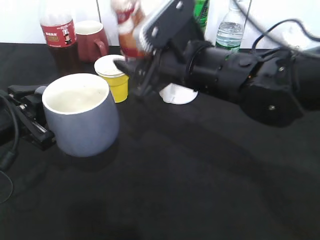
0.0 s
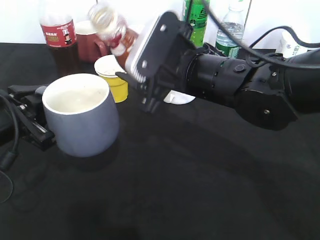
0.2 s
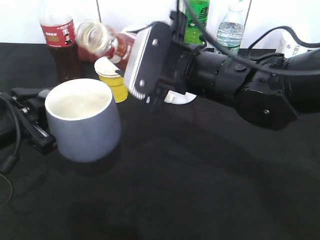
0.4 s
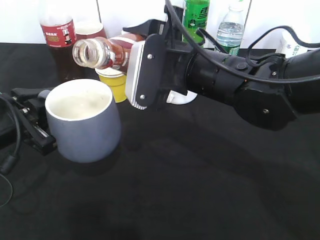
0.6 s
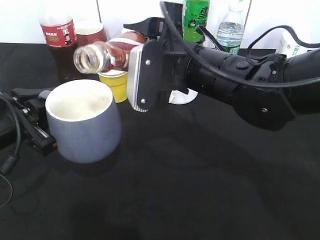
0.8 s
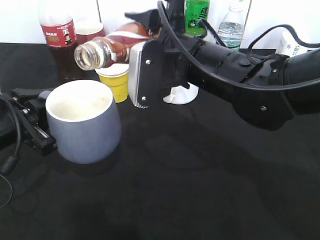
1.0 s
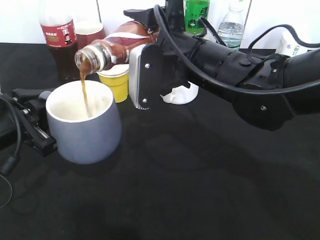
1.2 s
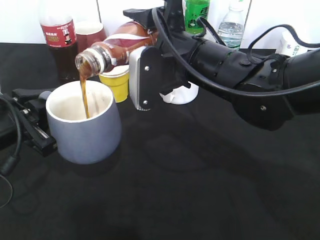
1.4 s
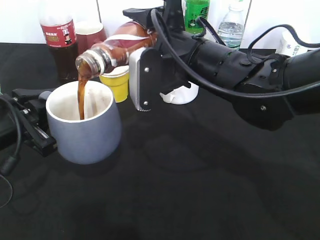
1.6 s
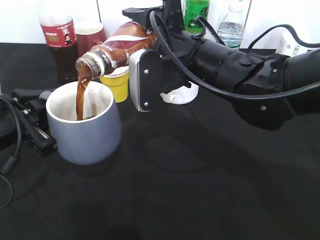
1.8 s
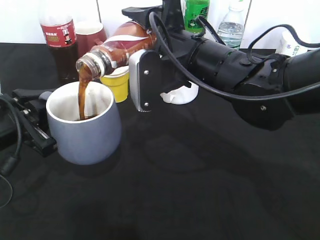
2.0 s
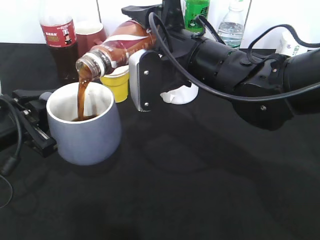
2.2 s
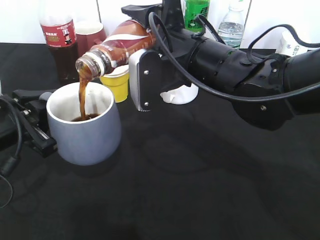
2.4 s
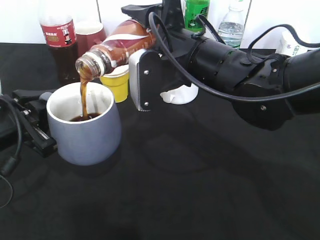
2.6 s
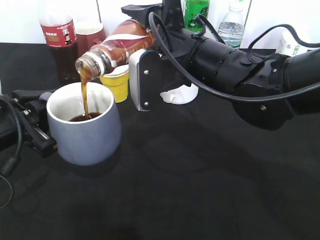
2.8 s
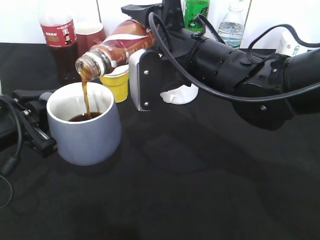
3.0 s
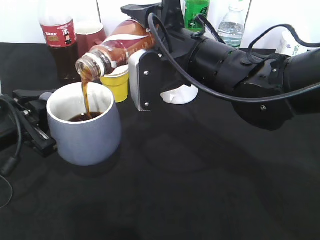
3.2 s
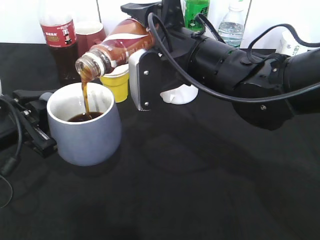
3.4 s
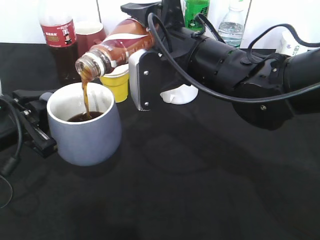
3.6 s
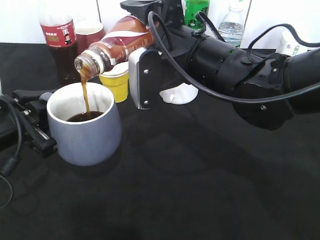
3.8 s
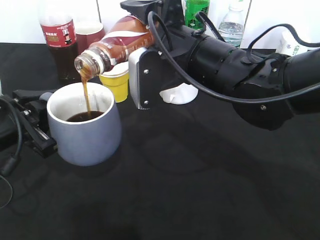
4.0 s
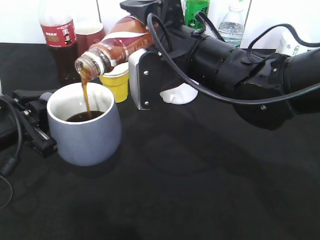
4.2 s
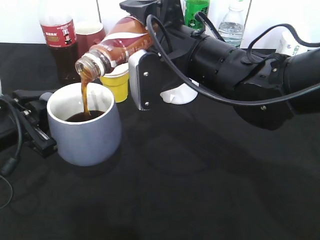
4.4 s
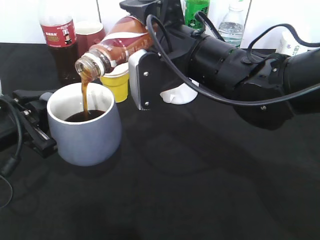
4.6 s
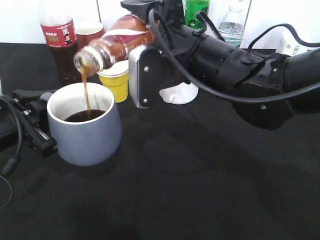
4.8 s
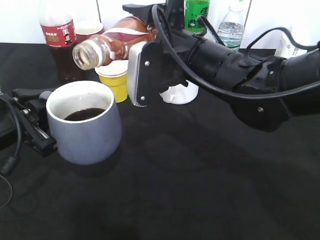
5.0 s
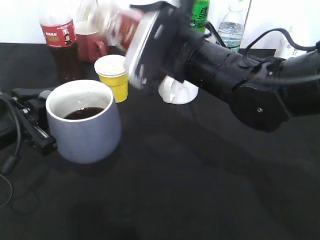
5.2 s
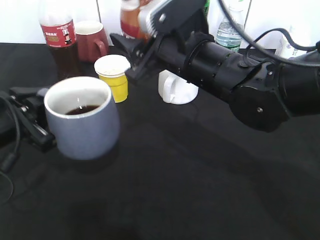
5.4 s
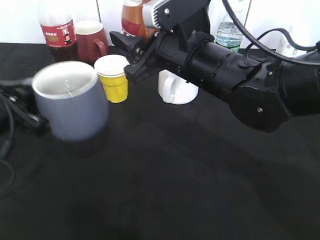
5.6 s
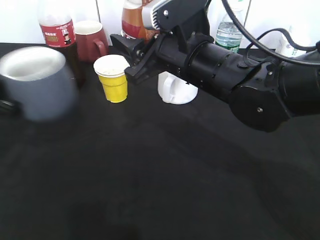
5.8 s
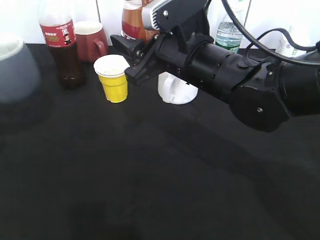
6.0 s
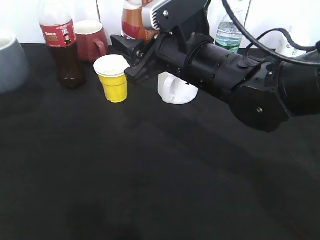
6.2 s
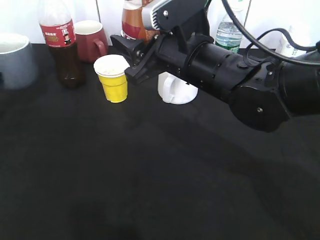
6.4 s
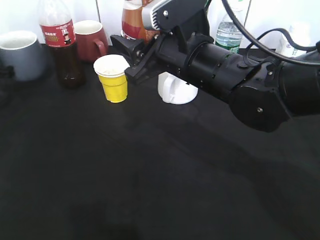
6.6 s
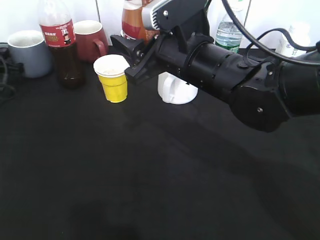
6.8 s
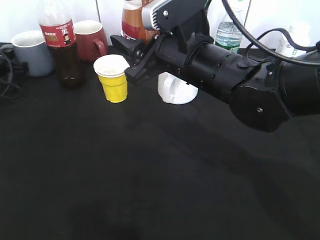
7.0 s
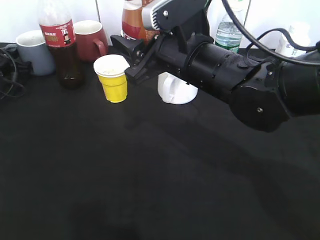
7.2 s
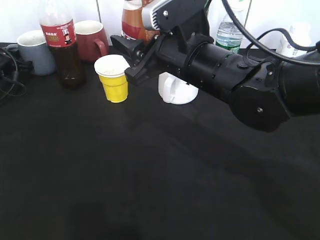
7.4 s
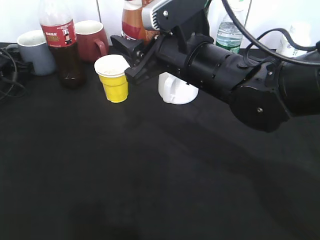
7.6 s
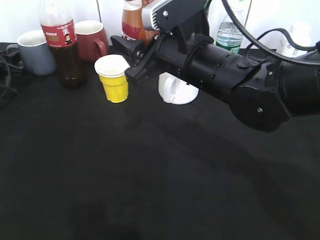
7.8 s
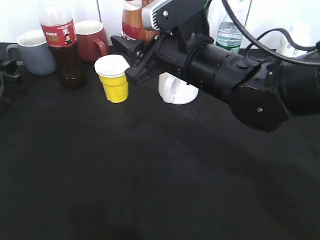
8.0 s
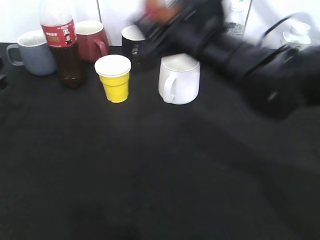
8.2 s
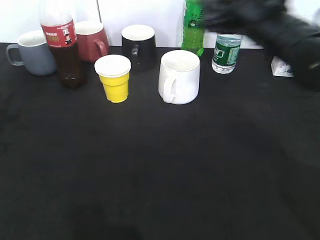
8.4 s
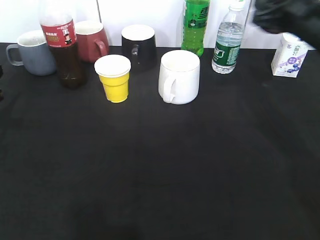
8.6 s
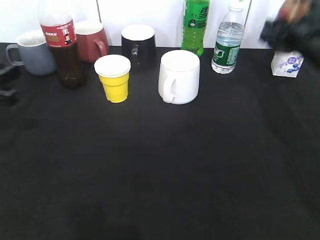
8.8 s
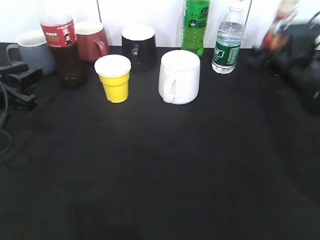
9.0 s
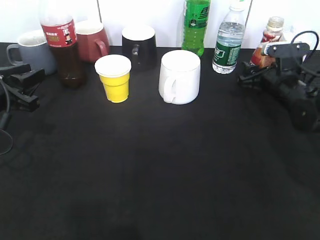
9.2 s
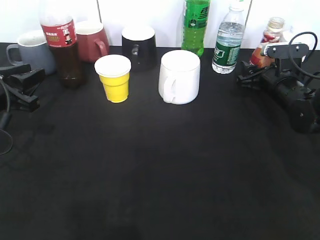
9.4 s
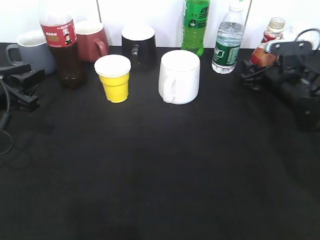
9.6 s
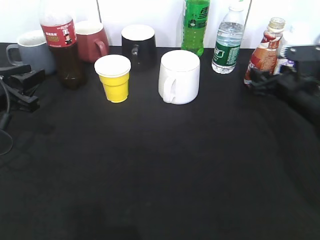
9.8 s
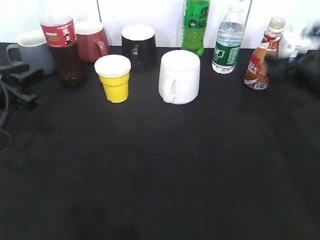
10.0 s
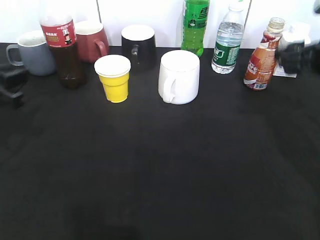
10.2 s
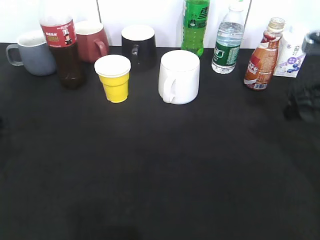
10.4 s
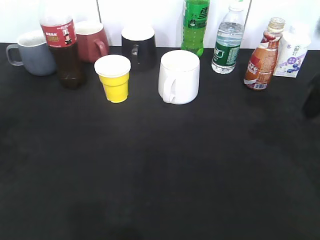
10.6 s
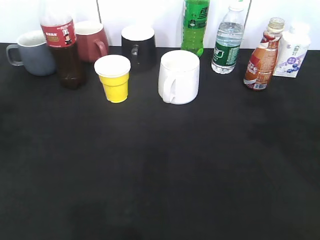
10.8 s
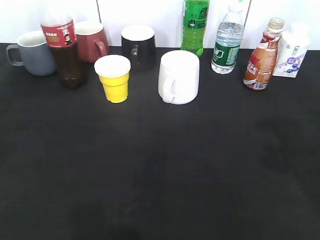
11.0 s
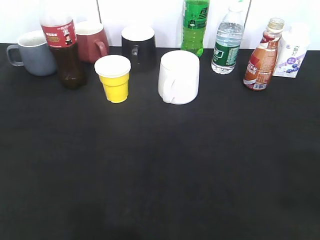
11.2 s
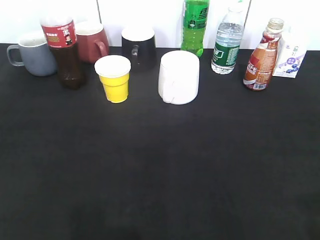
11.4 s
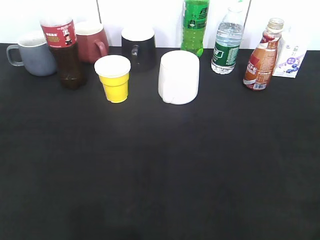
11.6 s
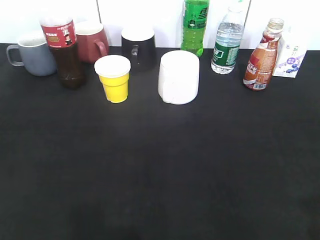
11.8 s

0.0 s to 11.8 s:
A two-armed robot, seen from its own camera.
Step, 0.0 to 5.0 s: Pour the coffee from bottle to cup with right gripper.
Step, 5.4 to 8.0 s: Place the grey cup on the table with left gripper.
Step, 8.4 to 10.0 s: Place the coffee bottle on the table with right gripper.
1.4 to 3.0 s: Both grippers stay put.
3.0 to 4.4 s: Neither gripper changes place.
4.4 to 6.0 s: The left gripper is displaced to the left by some 10 cm.
6.0 to 7.4 s: The left gripper goes about 25 cm forward and downward.
7.4 to 8.8 s: The left gripper shifts roughly 20 cm backward. The right gripper moves to the right and forward, roughly 25 cm.
8.8 to 10.4 s: The right gripper moves backward, some 10 cm, and reaches roughly 10 cm downward, then returns.
10.4 to 11.8 s: The left gripper is displaced backward and upward by roughly 20 cm. The right gripper shifts approximately 25 cm backward.

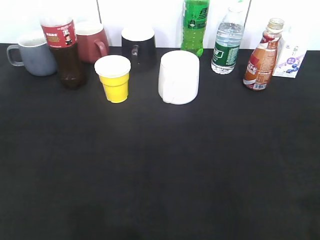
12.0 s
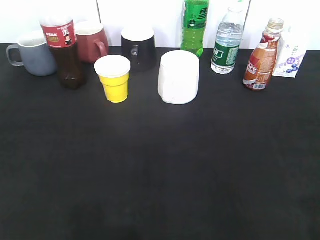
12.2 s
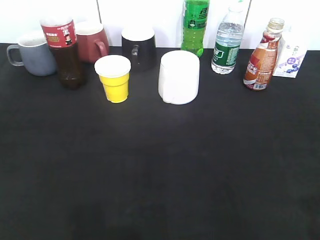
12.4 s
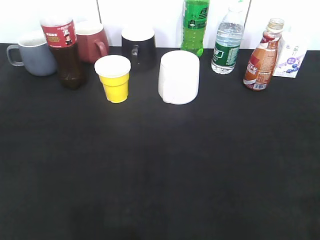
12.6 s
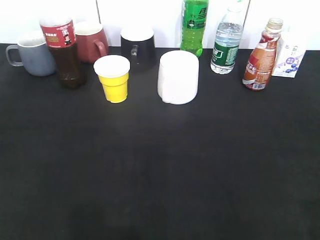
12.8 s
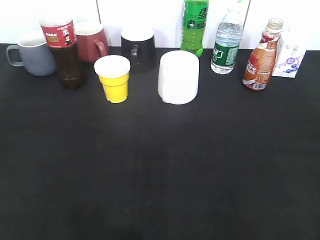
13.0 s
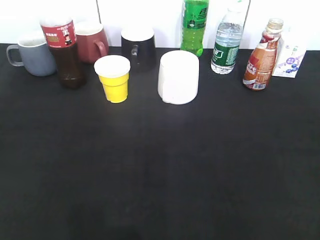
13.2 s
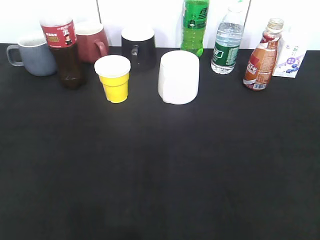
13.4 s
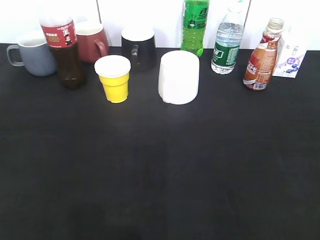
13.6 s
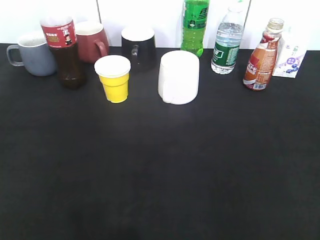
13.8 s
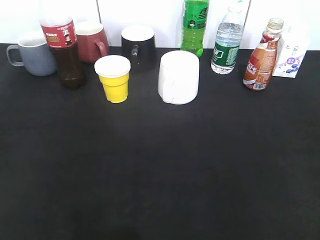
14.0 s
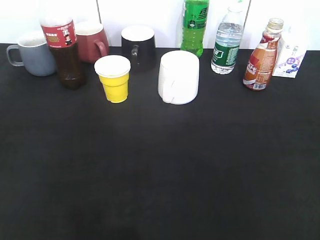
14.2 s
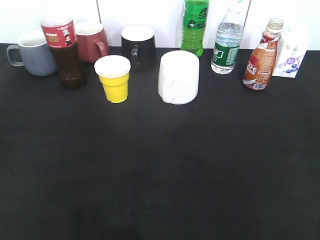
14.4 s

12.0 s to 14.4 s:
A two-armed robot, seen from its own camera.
13.2 to 14.4 s: Neither gripper changes place.

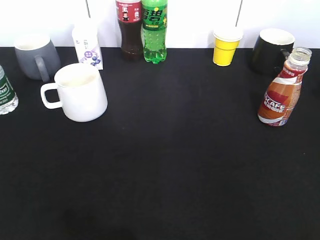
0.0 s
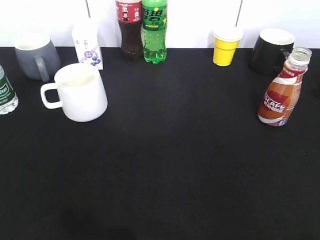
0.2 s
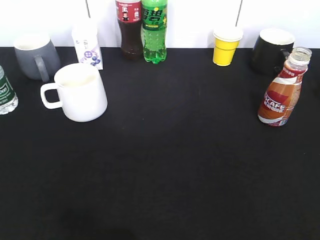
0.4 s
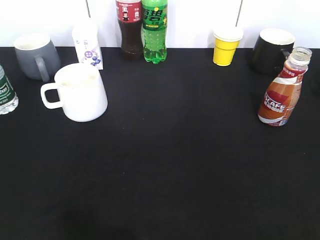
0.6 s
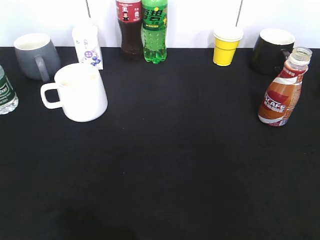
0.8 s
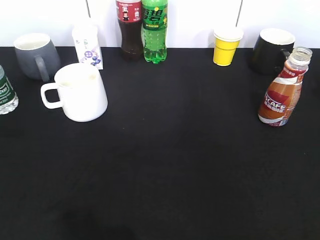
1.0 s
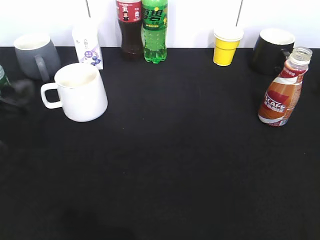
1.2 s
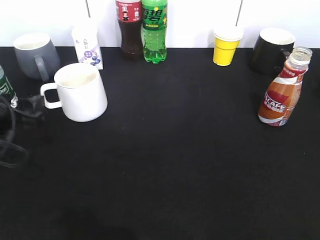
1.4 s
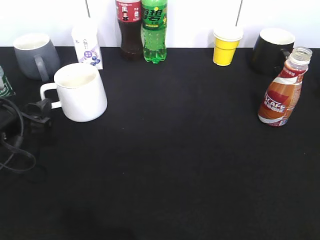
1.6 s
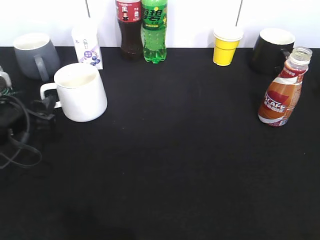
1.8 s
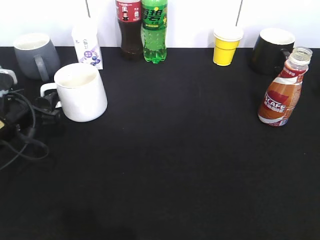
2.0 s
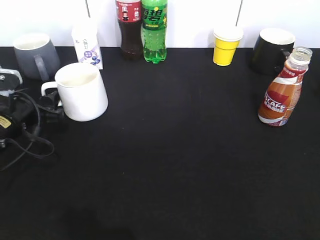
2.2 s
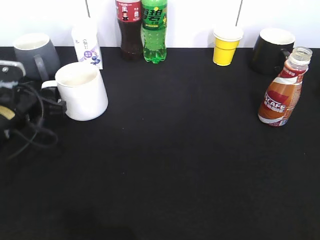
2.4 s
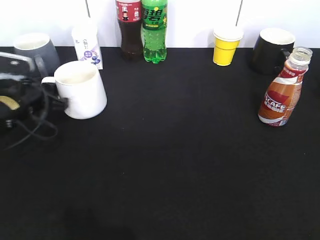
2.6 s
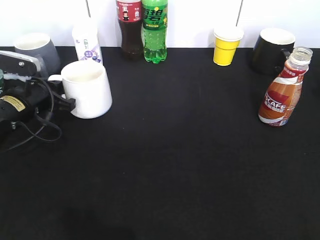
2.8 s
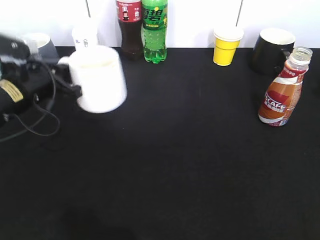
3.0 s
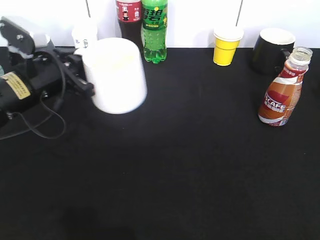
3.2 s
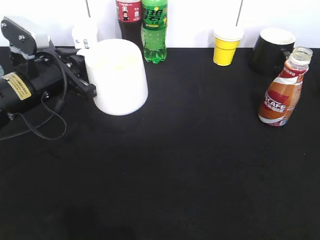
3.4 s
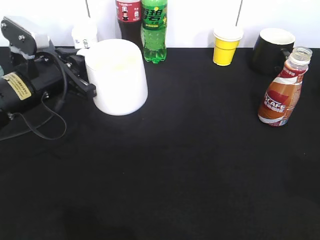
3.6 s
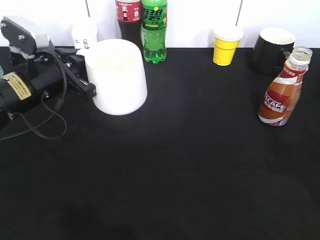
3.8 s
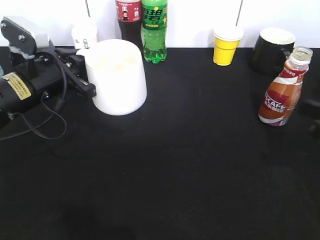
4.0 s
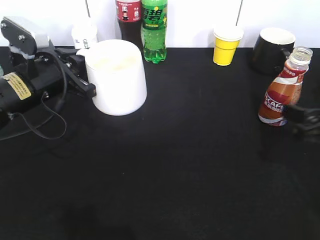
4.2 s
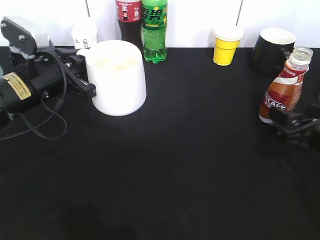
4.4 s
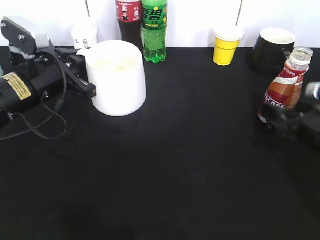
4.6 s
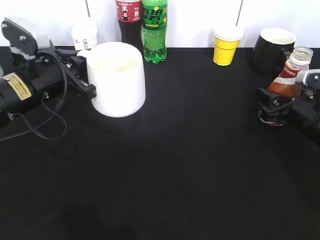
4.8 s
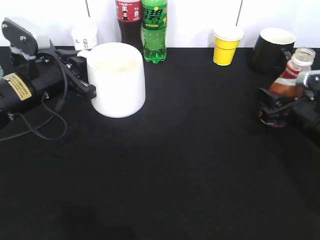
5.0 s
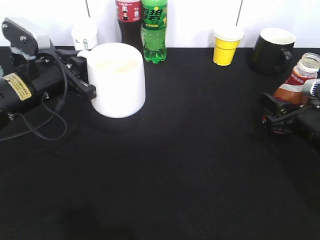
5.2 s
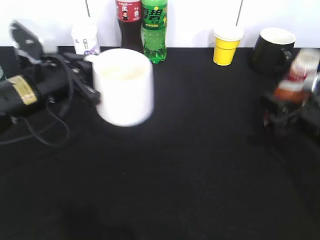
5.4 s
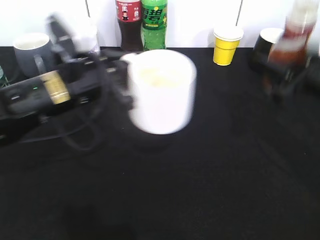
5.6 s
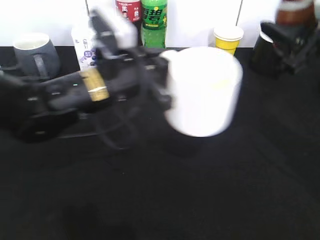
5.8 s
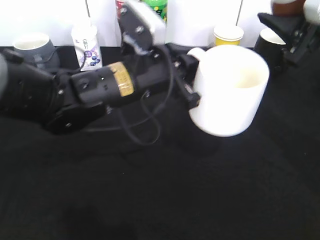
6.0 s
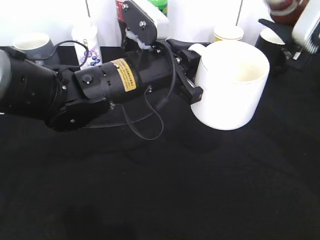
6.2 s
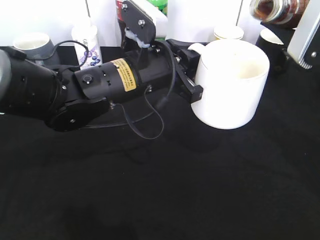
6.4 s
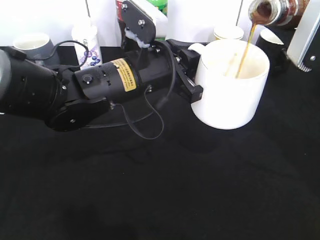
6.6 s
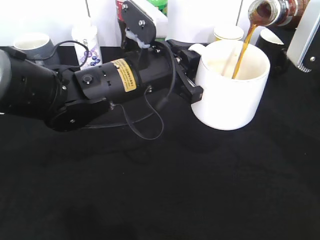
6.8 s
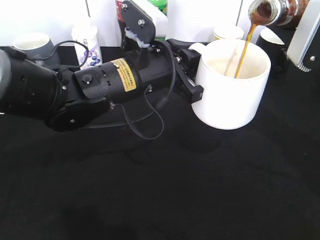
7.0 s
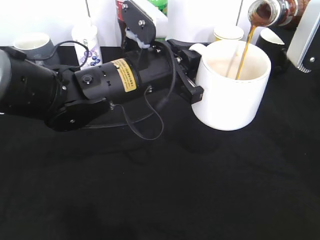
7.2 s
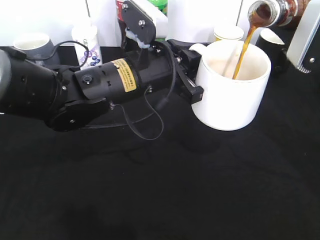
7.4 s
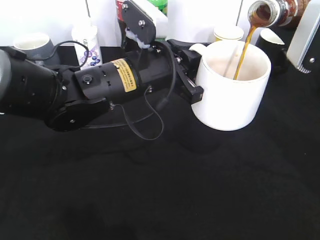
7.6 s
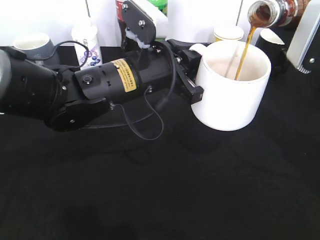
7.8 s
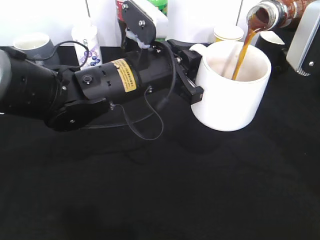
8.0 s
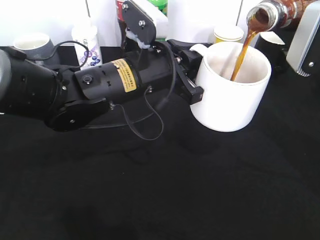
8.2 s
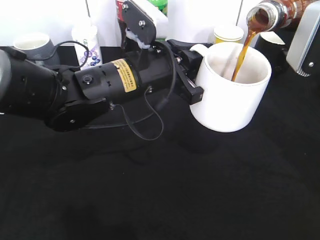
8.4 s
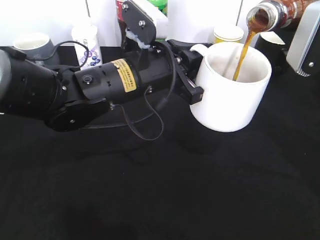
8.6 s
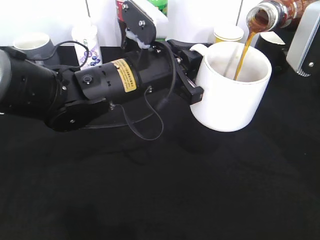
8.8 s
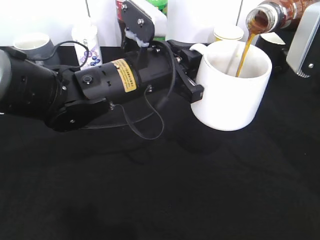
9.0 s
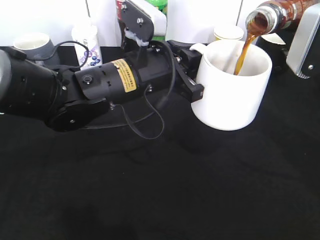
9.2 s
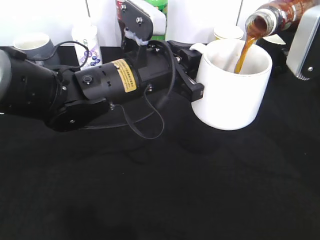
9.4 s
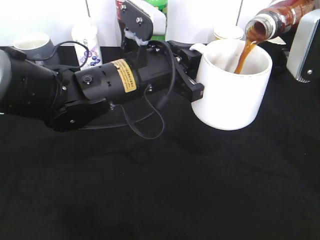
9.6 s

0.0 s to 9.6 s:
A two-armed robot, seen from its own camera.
Step, 0.0 to 2.6 s: Grasp the white cup with left gripper.
Step, 2.8 to 3.2 s: Lift the white cup with left gripper.
Step, 3.6 to 4.8 s: Grasp the bottle with coffee with right gripper.
0.0 to 1.6 s: The left gripper is displaced forward and downward by about 30 cm, and opens.
1.6 to 3.2 s: The left gripper goes some 10 cm to the right and forward, and closes its fingers.
3.2 to 4.8 s: The right gripper heads forward and downward, covering some 35 cm, and opens, then closes once more.
4.8 to 6.4 s: The right gripper is displaced upward by roughly 15 cm, and closes; the left gripper moves to the right, some 15 cm.
6.4 to 9.6 s: There are only small adjustments of the grippers.
